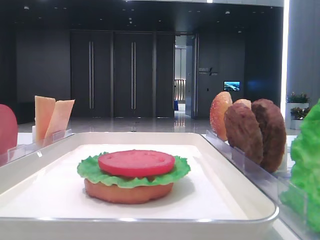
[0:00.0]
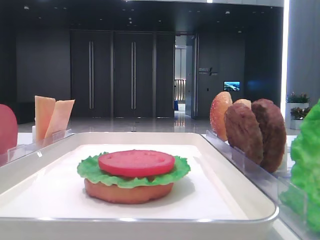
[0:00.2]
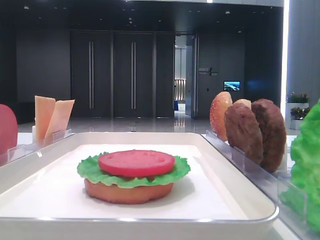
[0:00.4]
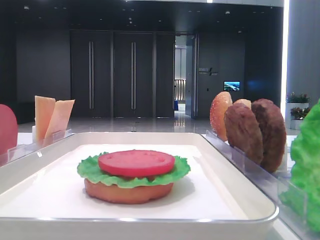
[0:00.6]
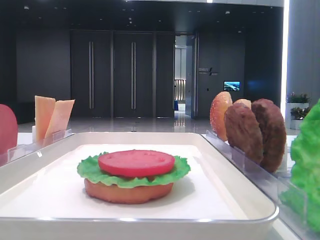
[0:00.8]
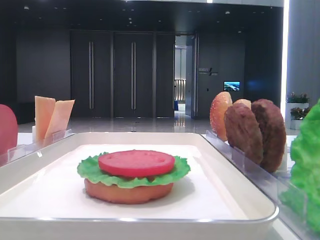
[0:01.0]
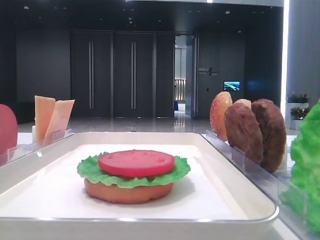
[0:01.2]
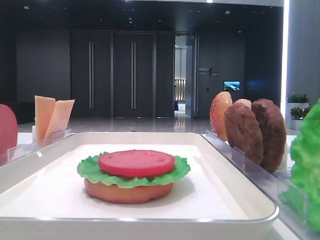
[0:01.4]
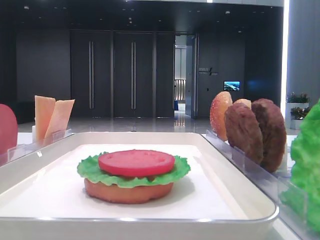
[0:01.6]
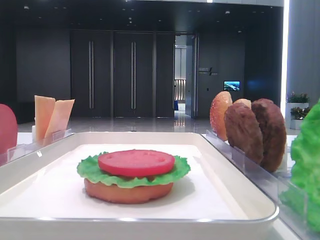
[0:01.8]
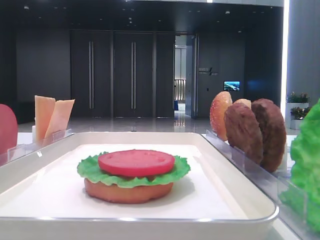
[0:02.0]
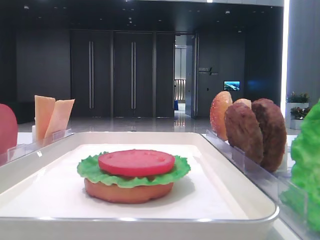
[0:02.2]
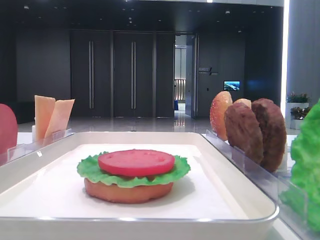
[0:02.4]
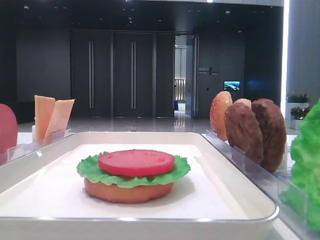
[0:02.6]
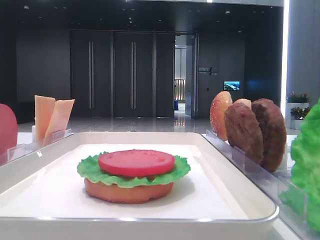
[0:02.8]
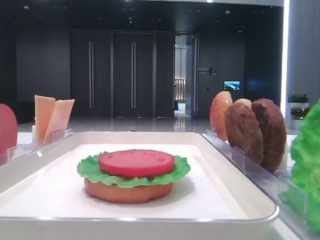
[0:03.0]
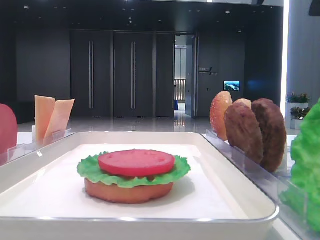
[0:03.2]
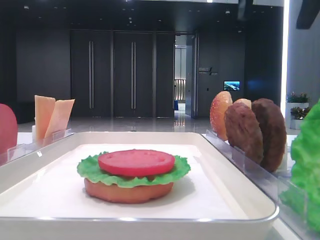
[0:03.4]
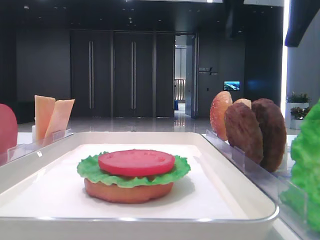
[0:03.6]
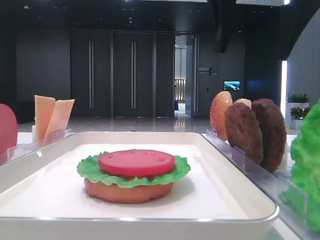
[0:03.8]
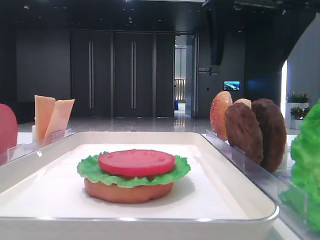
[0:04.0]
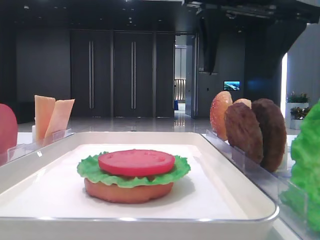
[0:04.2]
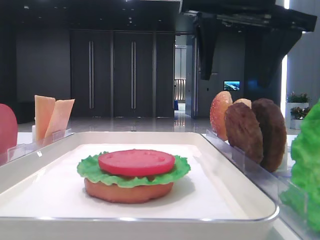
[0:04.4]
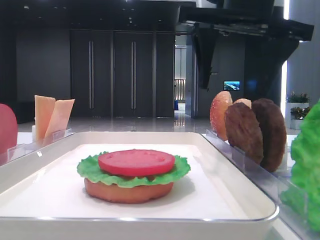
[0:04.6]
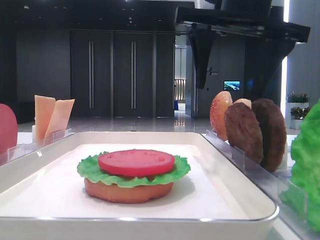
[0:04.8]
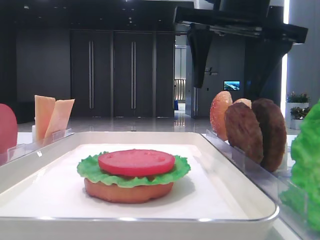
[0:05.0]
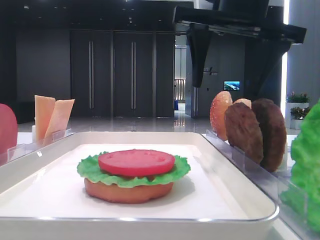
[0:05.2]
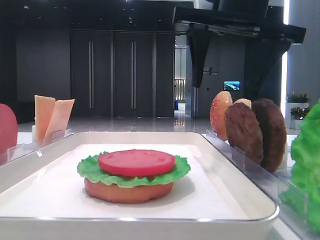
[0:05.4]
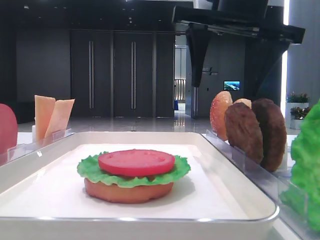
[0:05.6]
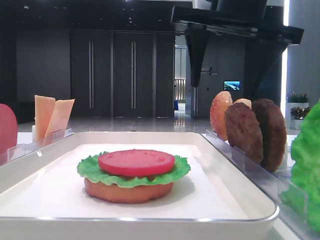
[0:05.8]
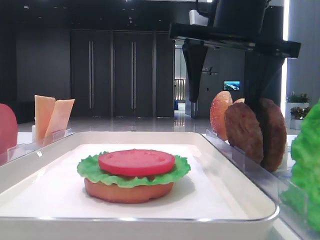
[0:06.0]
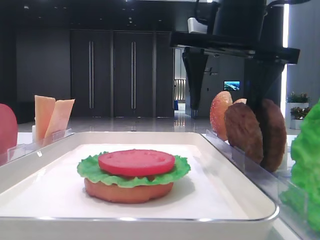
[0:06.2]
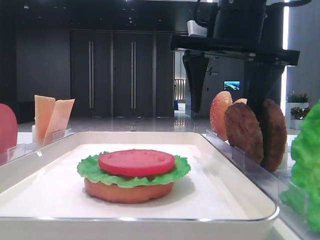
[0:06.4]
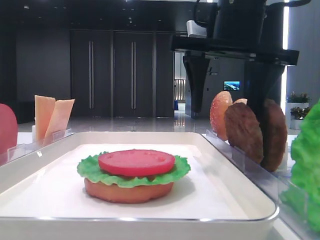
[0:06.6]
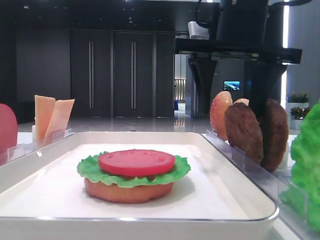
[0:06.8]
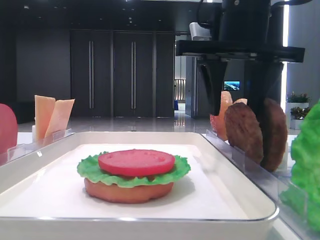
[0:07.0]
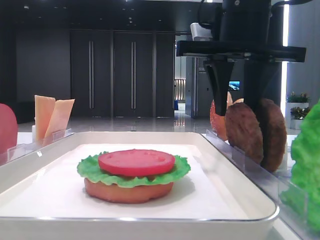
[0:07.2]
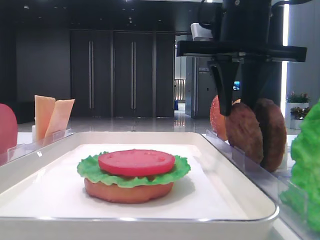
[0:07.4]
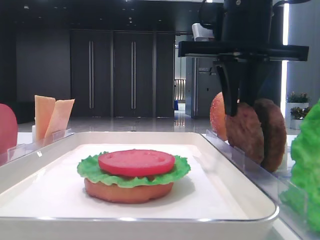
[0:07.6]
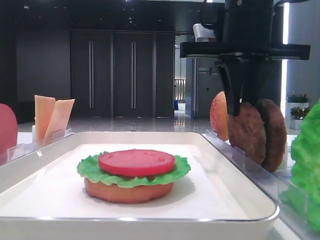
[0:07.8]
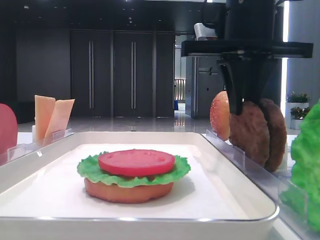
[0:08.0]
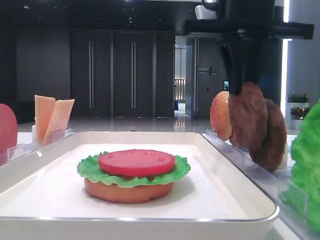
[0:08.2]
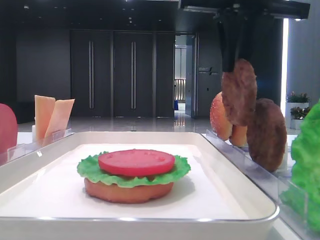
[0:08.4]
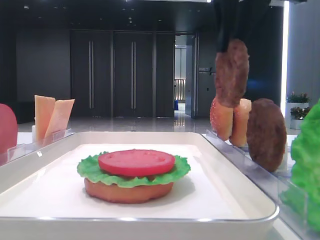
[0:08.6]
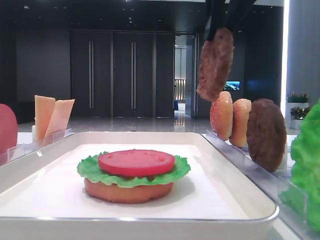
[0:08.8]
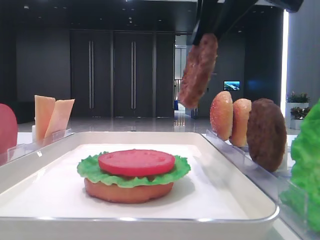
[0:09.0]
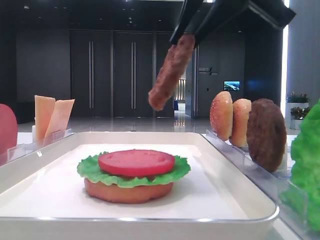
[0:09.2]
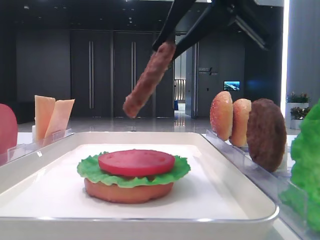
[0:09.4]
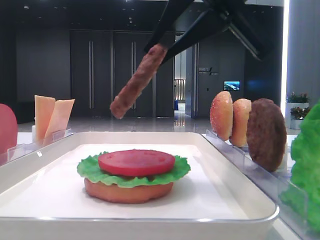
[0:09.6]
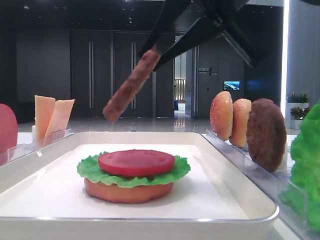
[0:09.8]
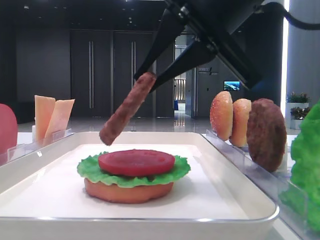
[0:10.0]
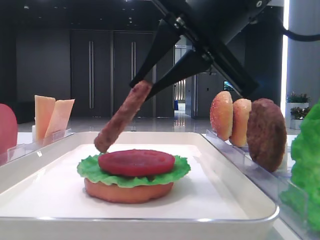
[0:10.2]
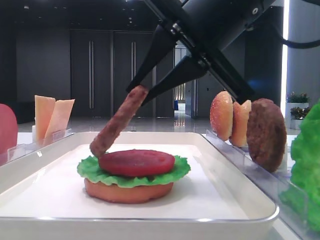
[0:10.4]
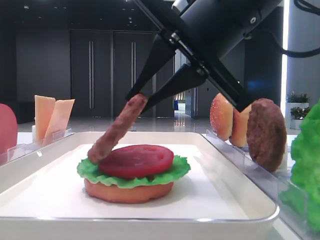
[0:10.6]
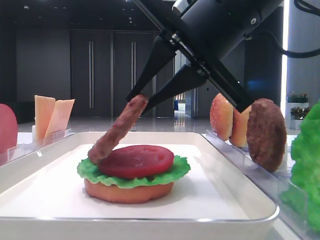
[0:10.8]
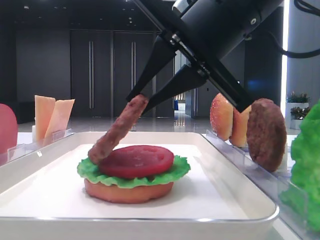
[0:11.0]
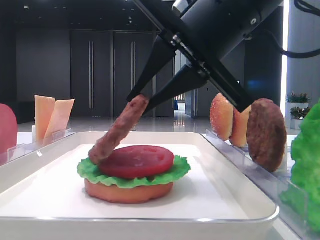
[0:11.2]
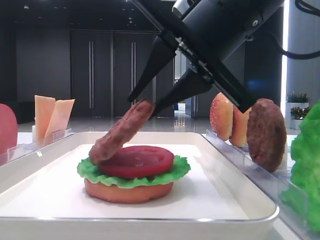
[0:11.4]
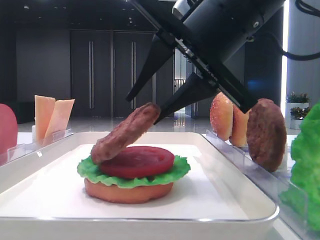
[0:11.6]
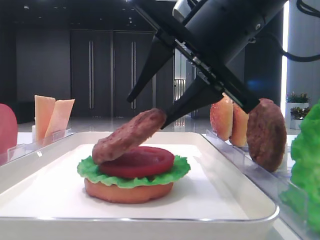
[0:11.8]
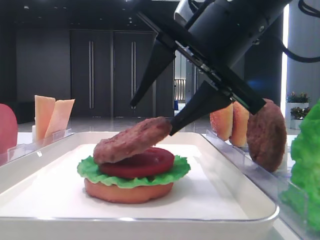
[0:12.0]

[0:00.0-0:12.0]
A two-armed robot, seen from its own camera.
Step, 0.0 to 7.8 s: Grab the patty with the right hand.
3.0 to 4.4 s: The right gripper shifts roughly 15 cm to the left and downward.
4.4 to 6.0 s: The grippers stay close to where they were, moving slightly.
6.0 to 7.6 s: The right gripper closes.
7.6 to 9.0 s: The right gripper travels upward and backward by about 10 cm.
9.0 to 10.4 s: The right gripper goes some 10 cm downward.
10.4 to 12.0 s: The right gripper opens its fingers.

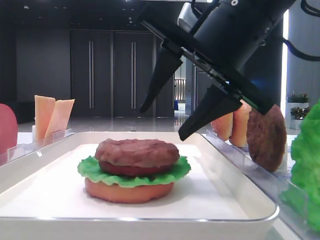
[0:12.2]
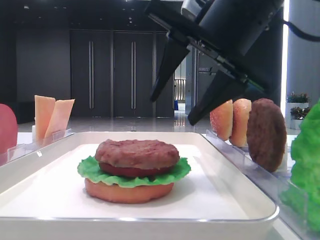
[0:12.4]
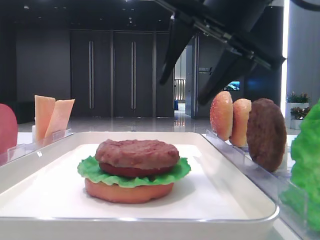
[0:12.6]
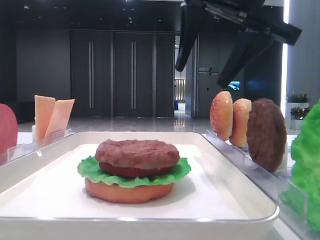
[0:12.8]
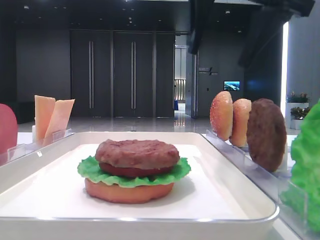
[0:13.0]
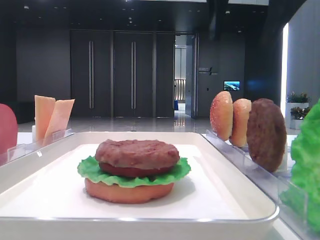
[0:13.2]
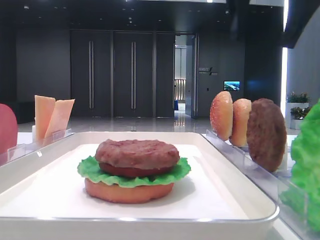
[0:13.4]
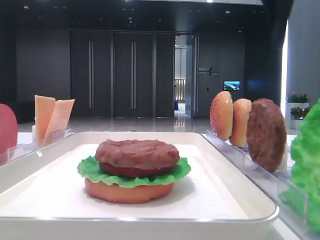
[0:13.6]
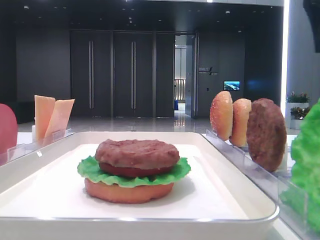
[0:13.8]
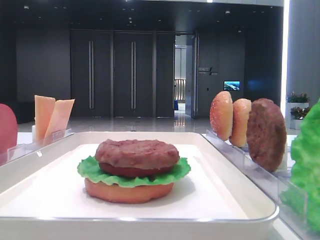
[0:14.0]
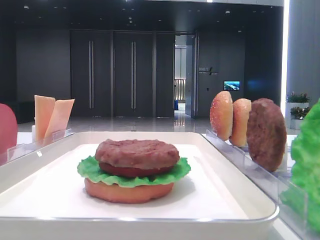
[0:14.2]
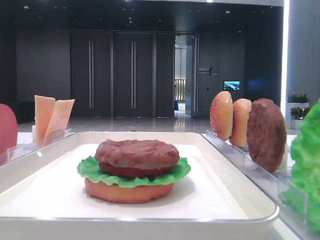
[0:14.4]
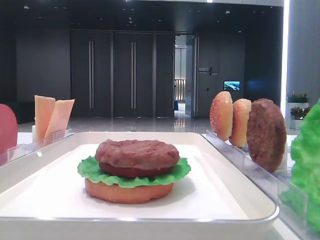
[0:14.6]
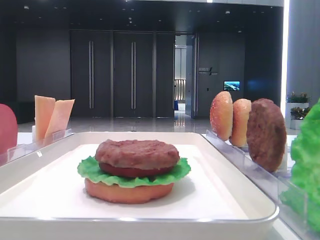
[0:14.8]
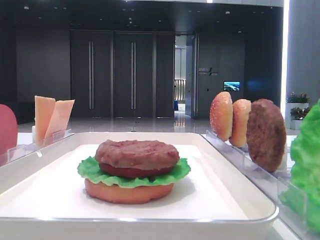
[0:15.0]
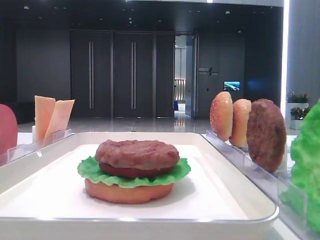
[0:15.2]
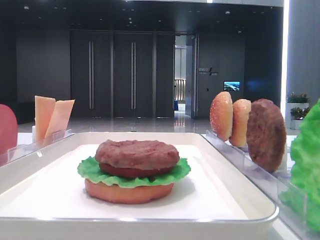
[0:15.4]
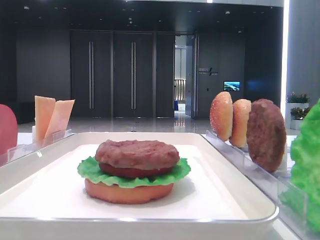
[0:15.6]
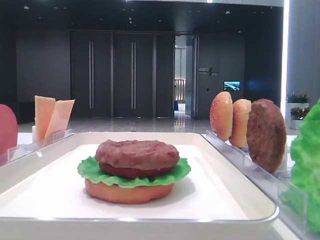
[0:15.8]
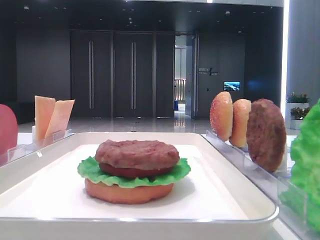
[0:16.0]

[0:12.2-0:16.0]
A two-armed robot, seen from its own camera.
12.2 to 13.4 s: The right gripper shifts roughly 15 cm upward and to the right.
13.4 to 14.8 s: The right gripper moves to the right and backward, some 20 cm.

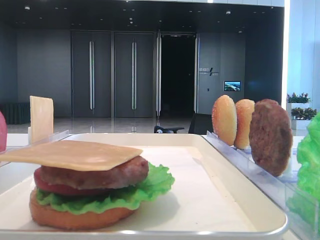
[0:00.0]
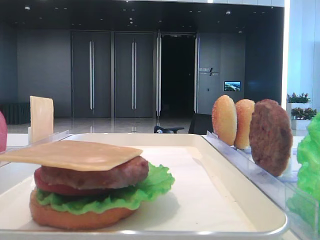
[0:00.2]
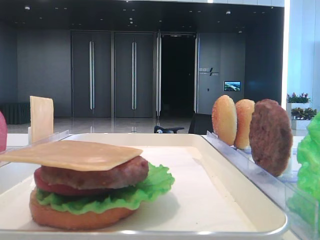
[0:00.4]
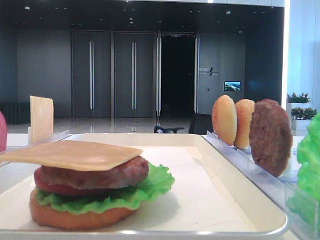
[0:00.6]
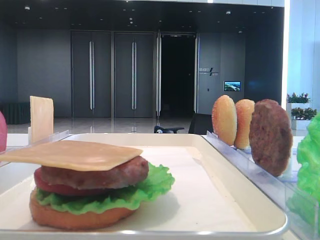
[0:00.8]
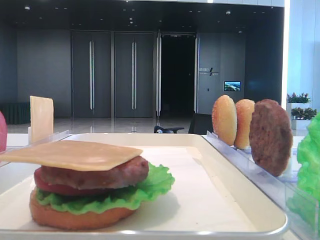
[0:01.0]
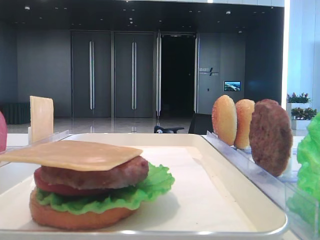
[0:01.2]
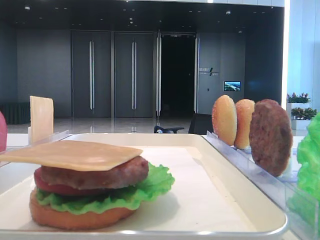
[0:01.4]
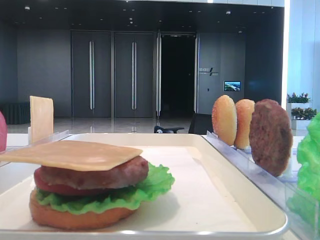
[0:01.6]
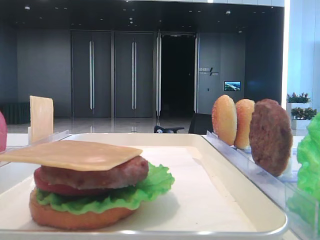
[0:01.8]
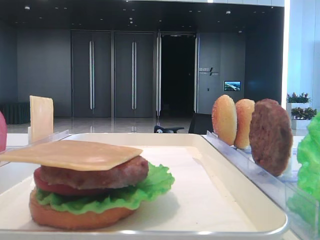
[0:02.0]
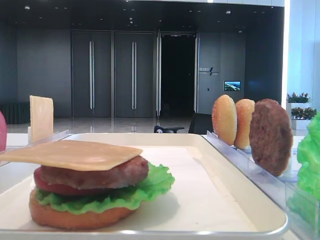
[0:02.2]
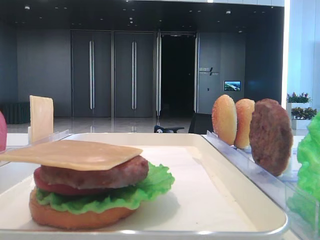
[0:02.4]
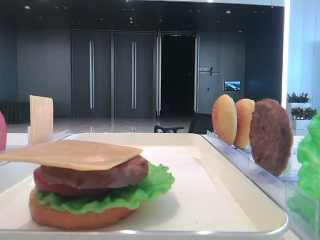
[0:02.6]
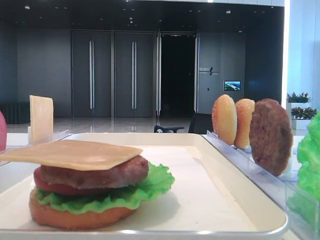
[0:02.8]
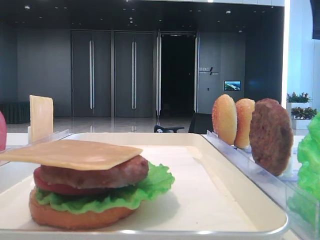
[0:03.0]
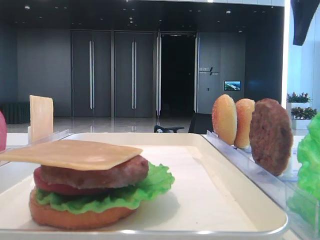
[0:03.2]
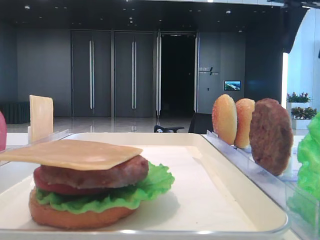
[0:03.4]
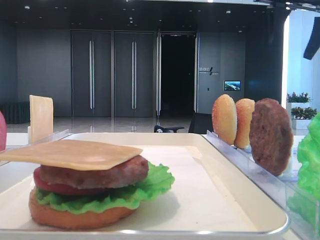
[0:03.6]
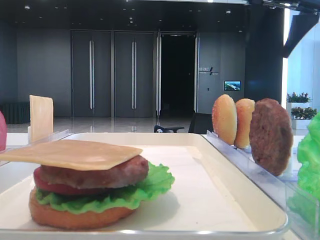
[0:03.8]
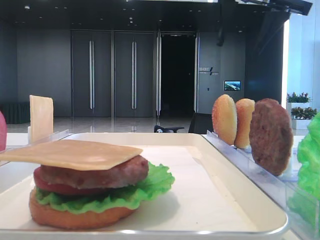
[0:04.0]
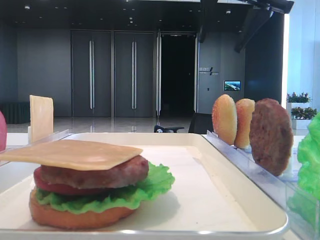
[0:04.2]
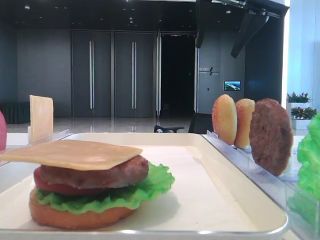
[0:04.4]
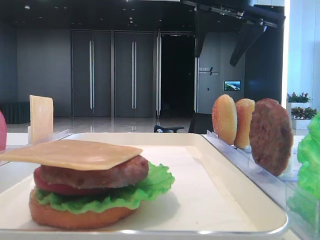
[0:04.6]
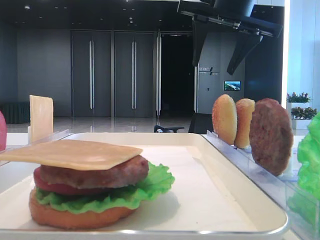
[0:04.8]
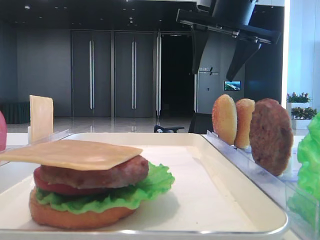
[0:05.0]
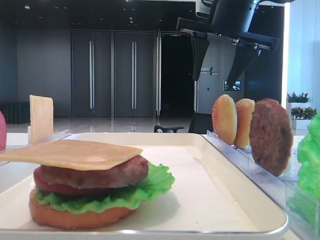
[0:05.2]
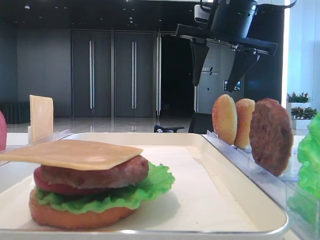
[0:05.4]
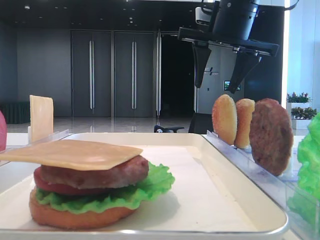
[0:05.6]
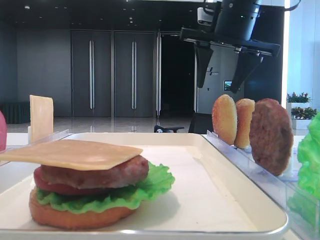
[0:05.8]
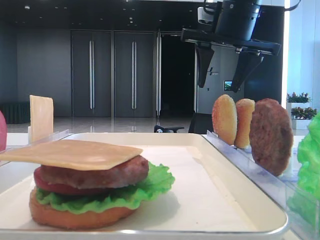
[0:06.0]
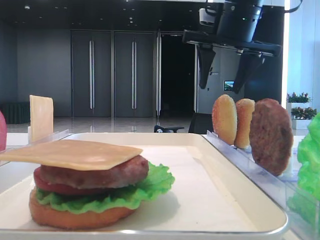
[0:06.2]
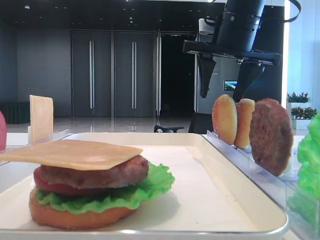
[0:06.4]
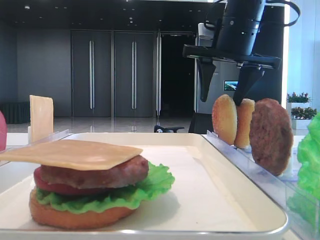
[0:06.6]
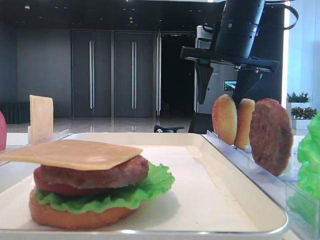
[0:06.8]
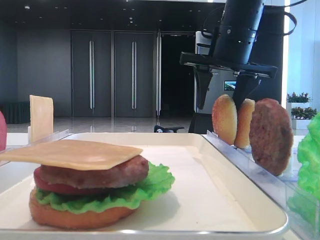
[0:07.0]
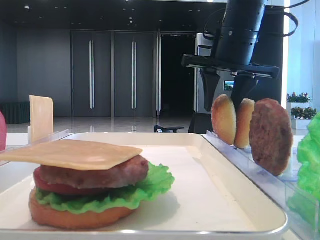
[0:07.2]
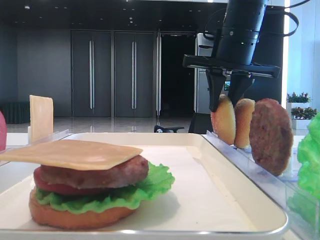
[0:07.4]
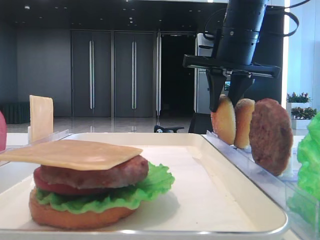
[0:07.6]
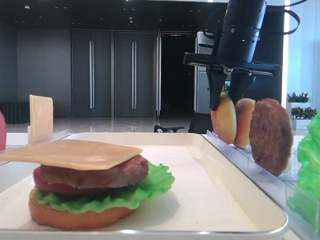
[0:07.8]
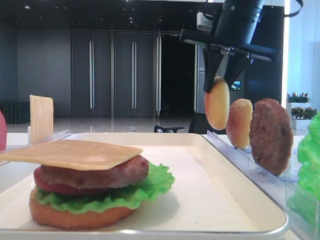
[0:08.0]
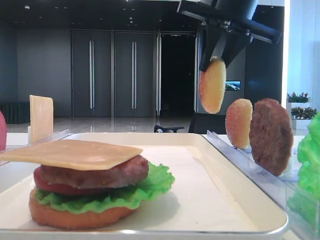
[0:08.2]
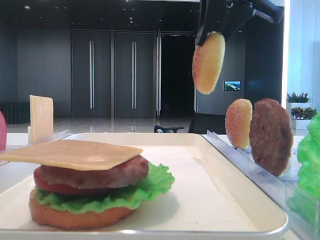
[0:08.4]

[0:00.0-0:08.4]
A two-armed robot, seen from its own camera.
Step, 0.0 to 7.6 s: Pick up the top bread slice with the right hand.
1.4 to 2.8 s: The right gripper heads forward, covering approximately 30 cm.
2.8 to 4.2 s: The right gripper travels to the left and forward by some 15 cm.
4.2 to 5.6 s: The right gripper travels downward by roughly 5 cm, while the left gripper closes up.
5.6 to 7.0 s: The left gripper closes its fingers.
7.0 to 8.4 s: The right gripper moves upward and backward, approximately 10 cm, and closes up.
